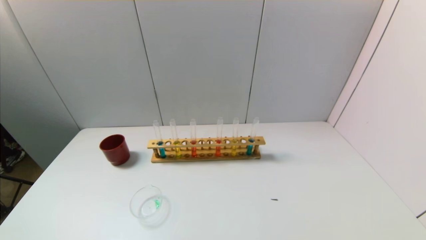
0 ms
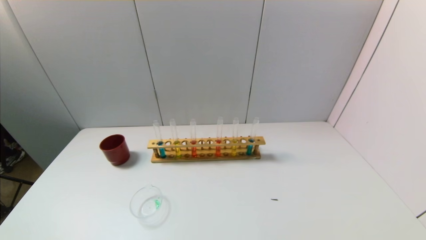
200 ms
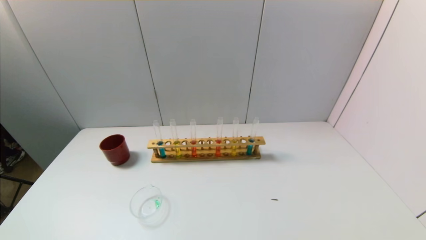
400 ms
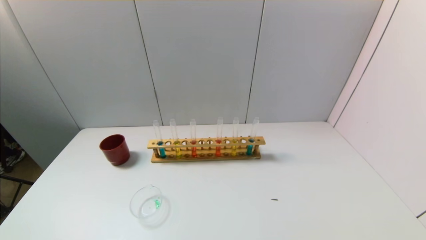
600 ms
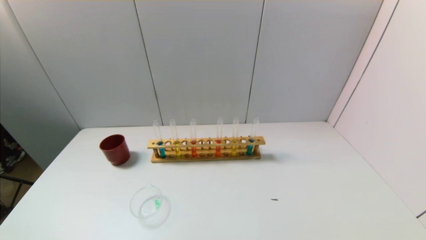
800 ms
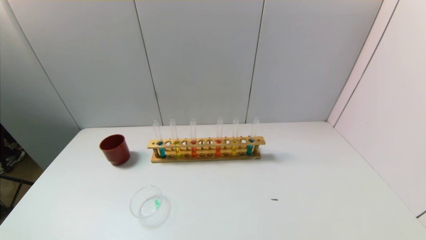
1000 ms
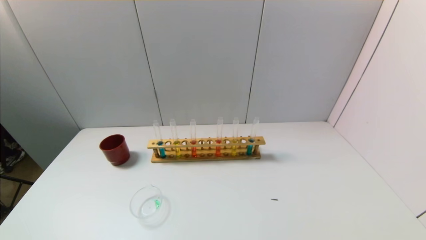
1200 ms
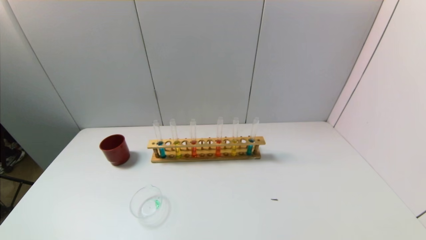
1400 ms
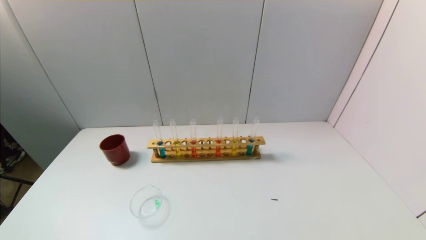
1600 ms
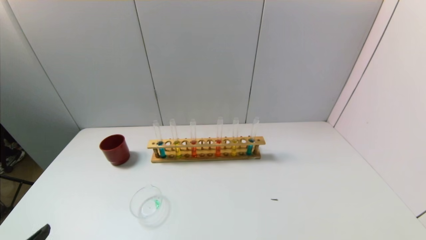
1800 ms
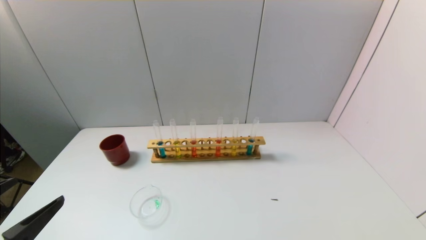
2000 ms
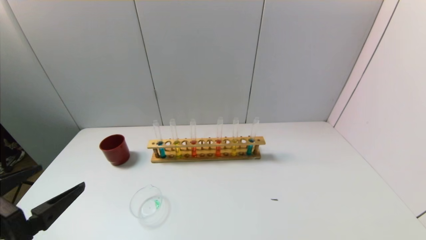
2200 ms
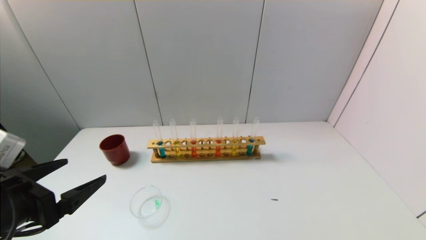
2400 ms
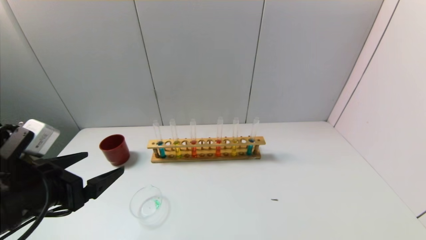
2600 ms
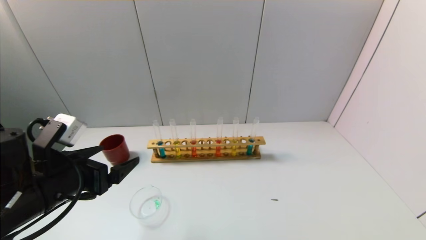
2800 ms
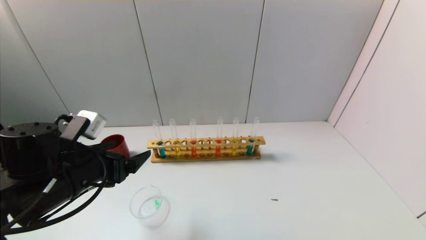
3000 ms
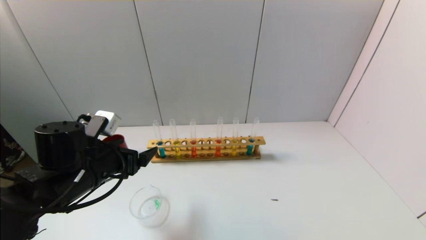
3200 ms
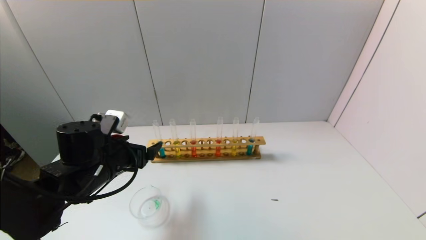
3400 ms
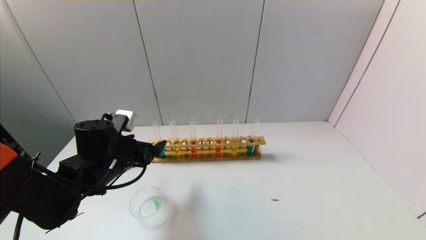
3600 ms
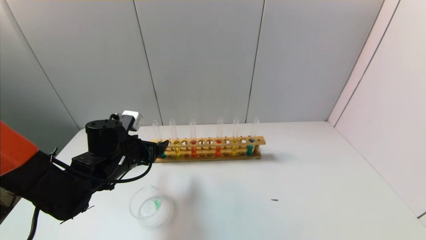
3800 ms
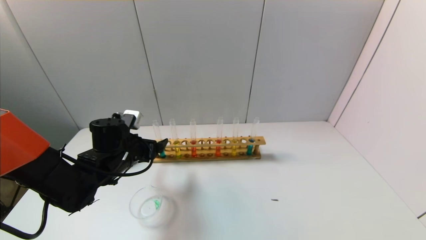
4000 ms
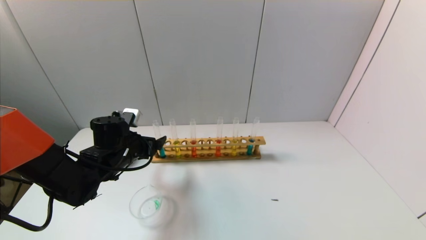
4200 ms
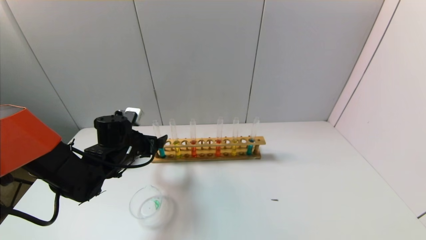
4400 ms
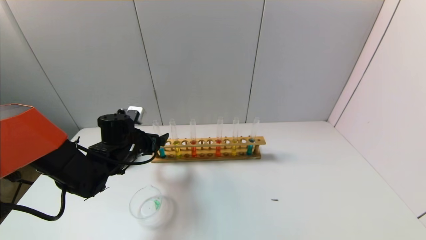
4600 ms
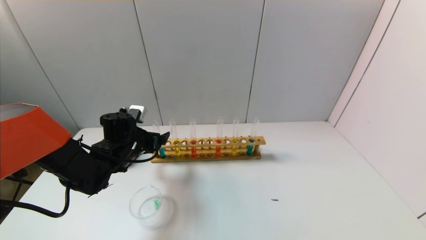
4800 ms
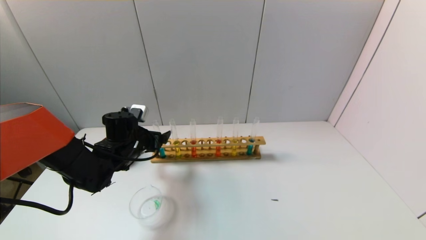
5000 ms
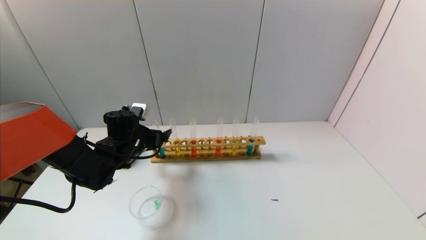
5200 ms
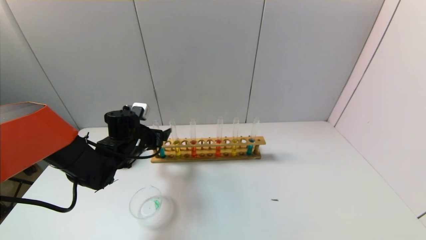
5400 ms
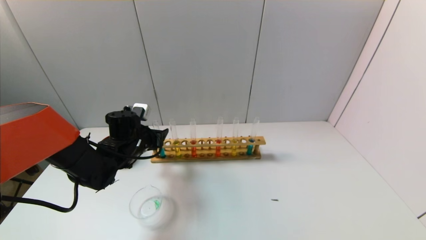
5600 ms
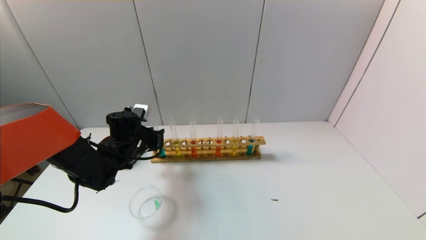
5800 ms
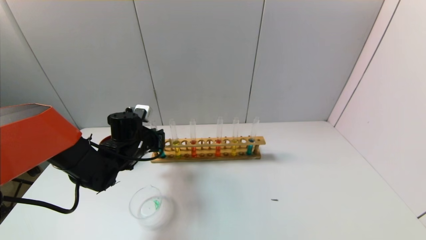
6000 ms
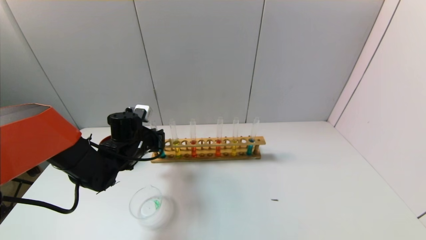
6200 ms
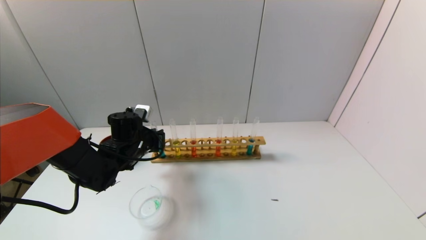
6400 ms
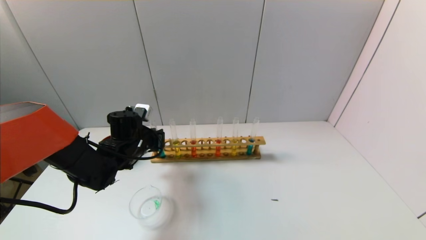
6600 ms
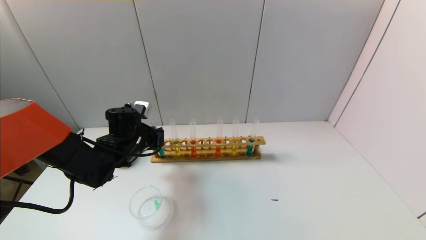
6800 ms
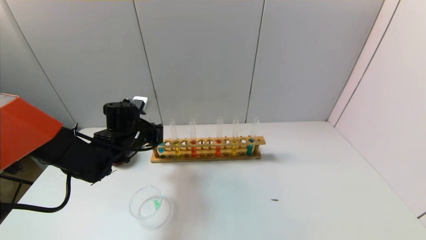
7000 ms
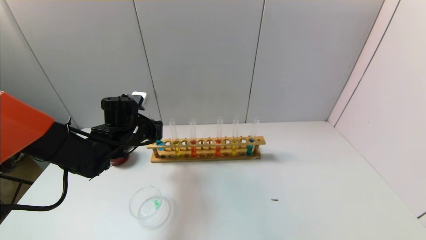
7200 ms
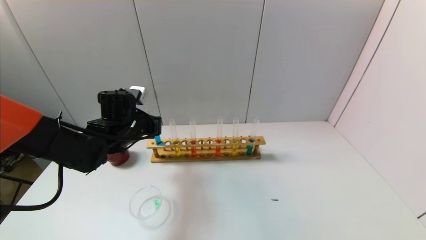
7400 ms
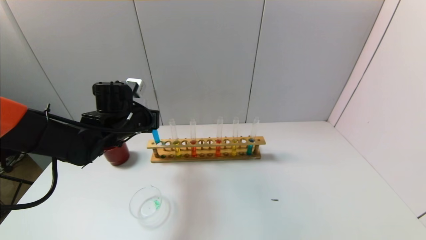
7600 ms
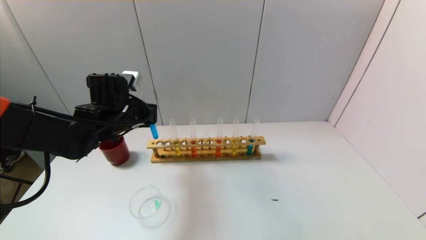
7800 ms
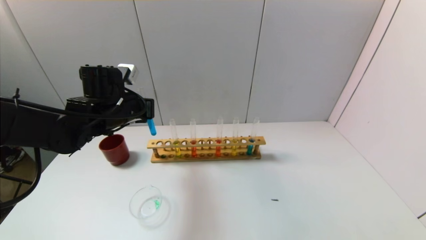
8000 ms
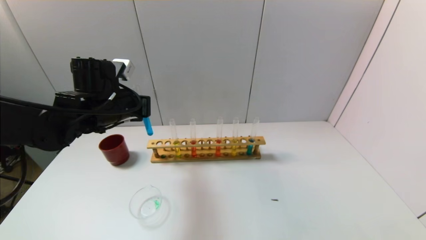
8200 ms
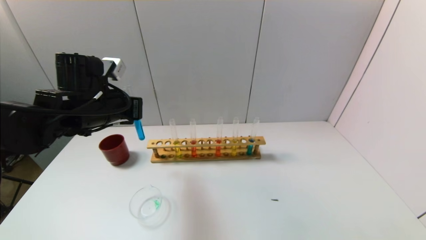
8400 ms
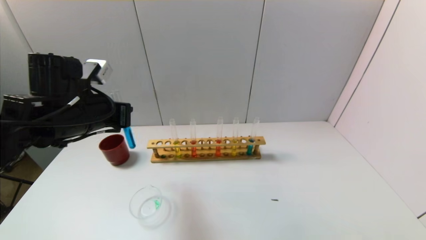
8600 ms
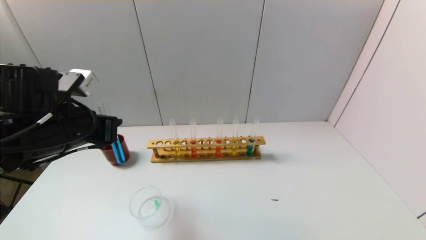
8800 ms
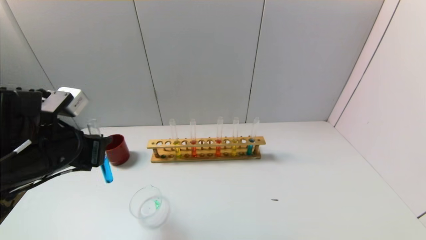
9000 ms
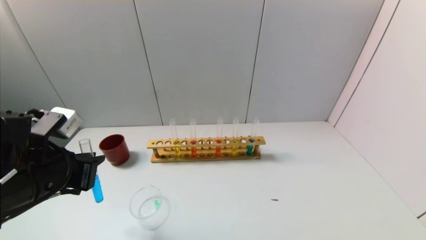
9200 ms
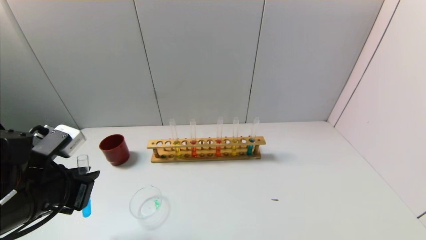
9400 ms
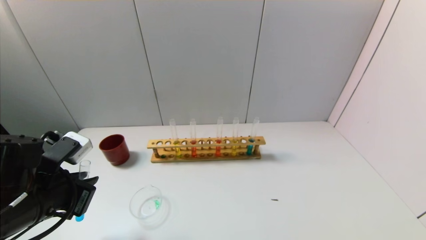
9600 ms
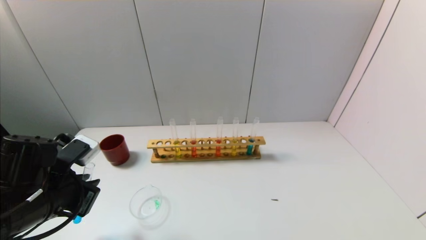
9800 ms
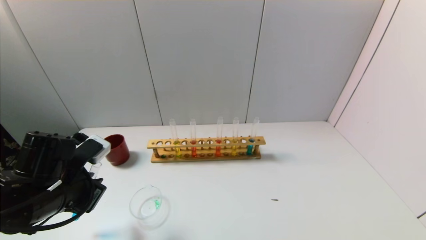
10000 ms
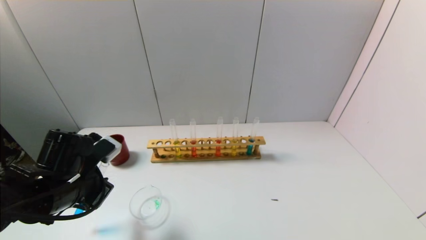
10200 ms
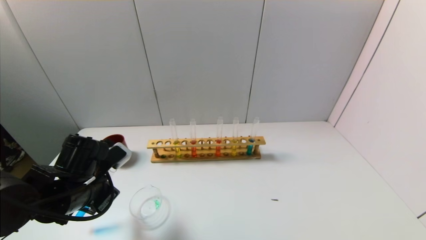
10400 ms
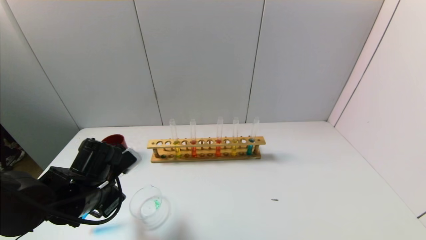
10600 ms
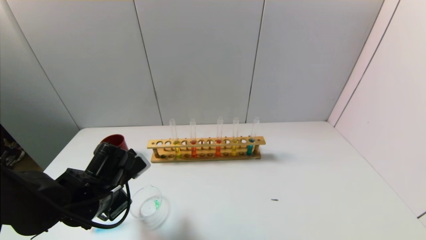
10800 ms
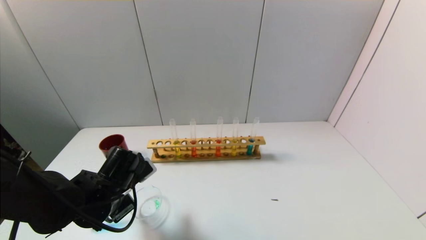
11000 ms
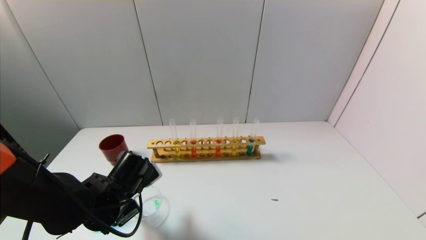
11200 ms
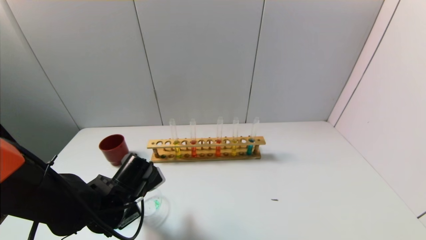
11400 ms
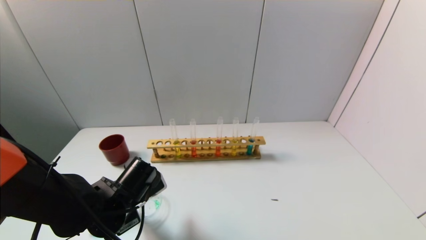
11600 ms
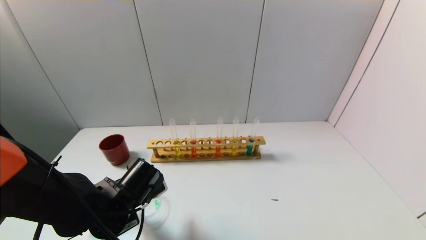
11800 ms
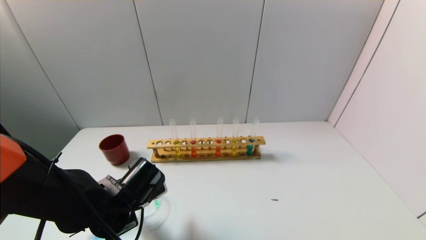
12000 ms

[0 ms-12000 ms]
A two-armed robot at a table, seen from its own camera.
Task of the whole recording: pick up the test tube with yellow pigment and the test tube with blue pigment by grippers and pour them into the beaker.
Step, 0 ms to 6000 ms: Grasp the blue reagent with the left gripper.
1600 ms to 3000 ms: The left gripper is displaced forward by some 20 cm.
3000 ms to 4400 ms: The left gripper shifts approximately 15 cm forward and downward.
4400 ms to 6000 ms: The left gripper closes its fingers.
6000 ms to 7600 ms: The left gripper travels upward by some 10 cm.
7600 ms to 9000 ms: The left gripper heads backward, covering about 15 cm.
9000 ms to 10400 ms: The left gripper moves downward, roughly 10 cm.
10400 ms to 12000 ms: The left gripper is displaced to the right by roughly 5 cm.

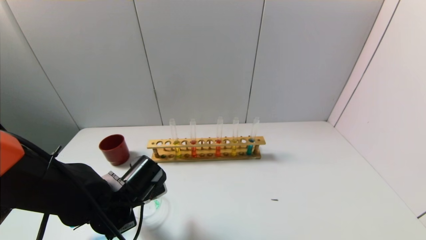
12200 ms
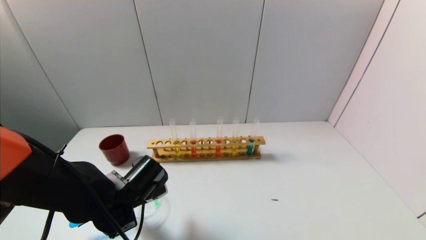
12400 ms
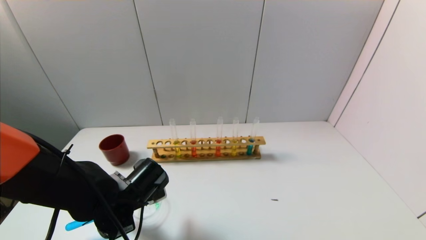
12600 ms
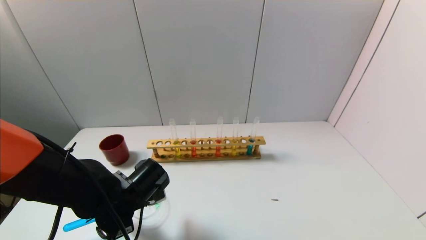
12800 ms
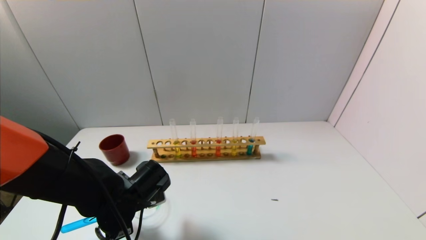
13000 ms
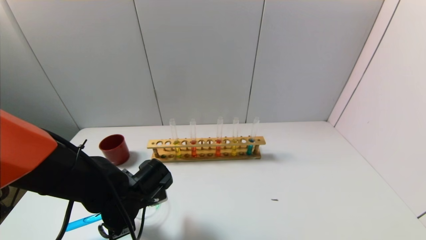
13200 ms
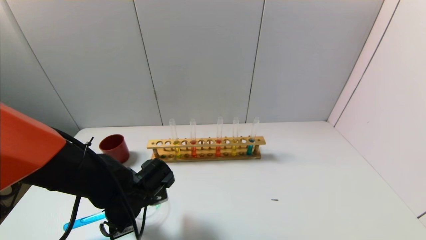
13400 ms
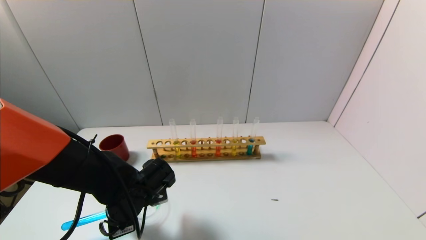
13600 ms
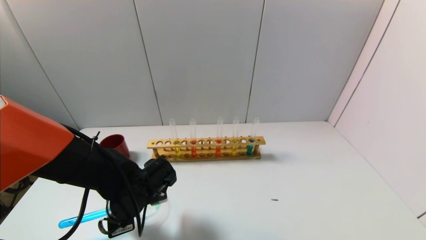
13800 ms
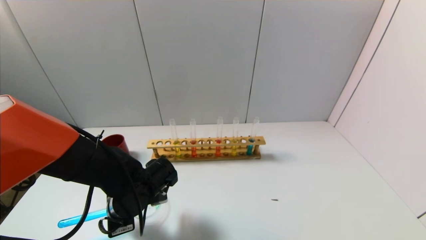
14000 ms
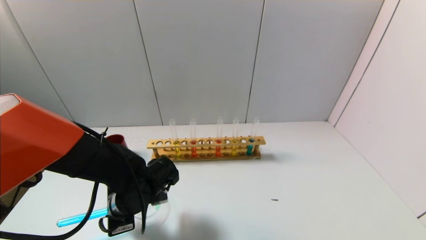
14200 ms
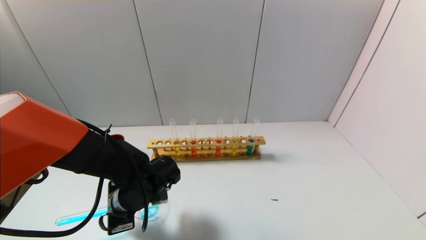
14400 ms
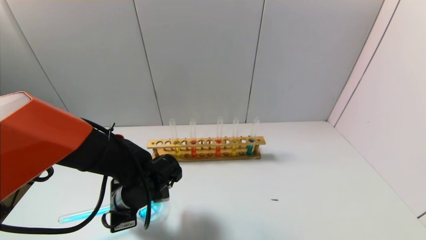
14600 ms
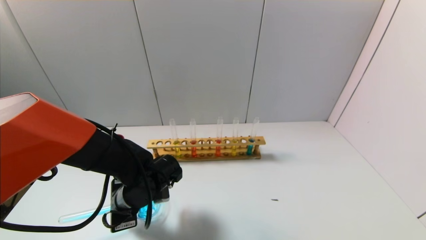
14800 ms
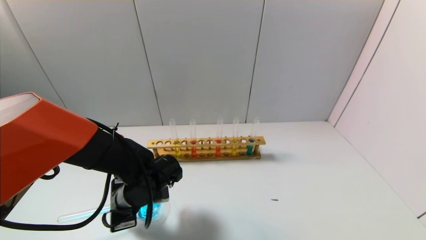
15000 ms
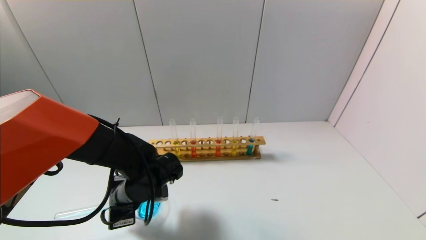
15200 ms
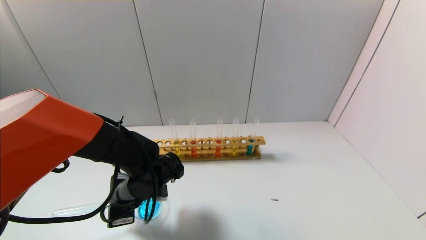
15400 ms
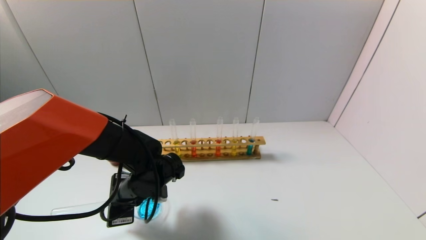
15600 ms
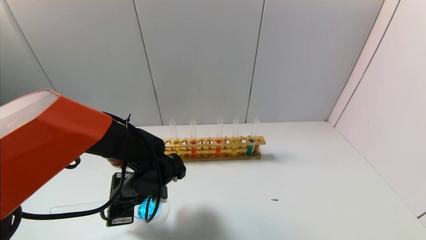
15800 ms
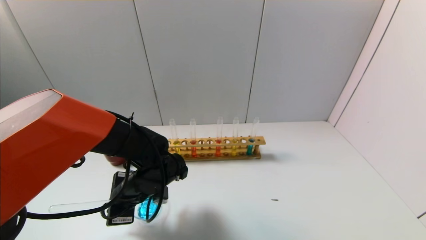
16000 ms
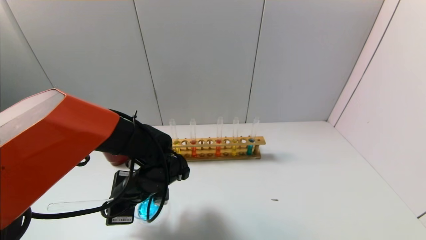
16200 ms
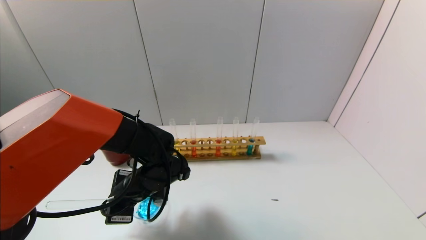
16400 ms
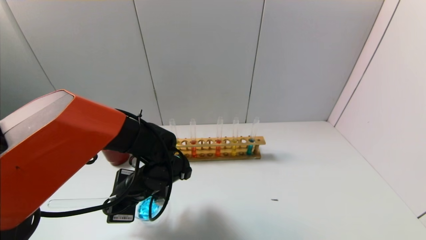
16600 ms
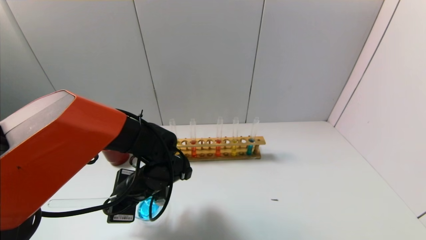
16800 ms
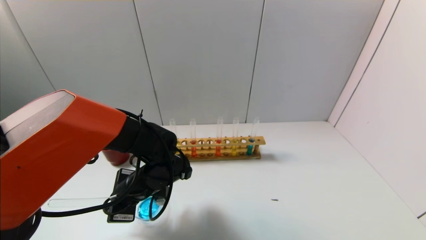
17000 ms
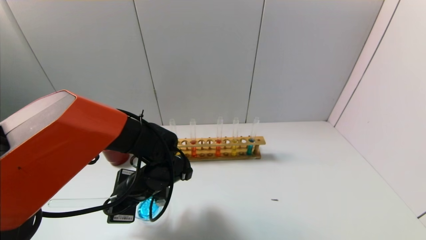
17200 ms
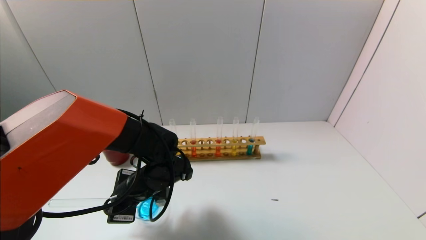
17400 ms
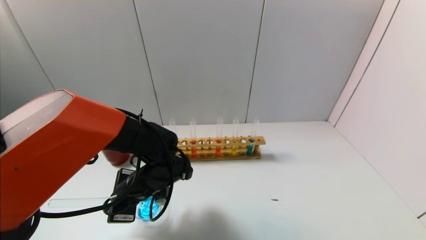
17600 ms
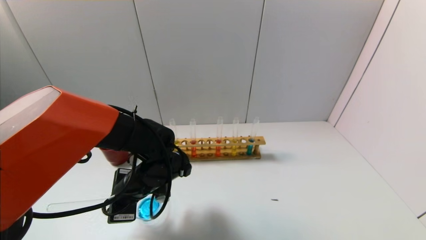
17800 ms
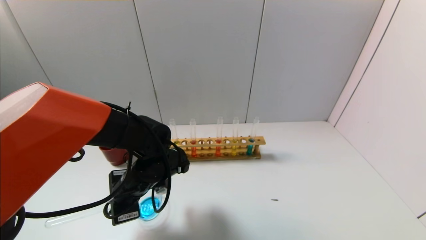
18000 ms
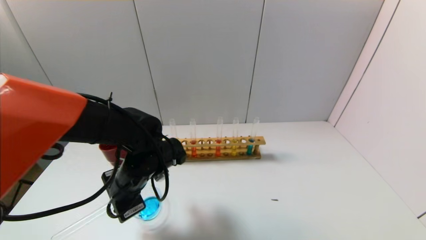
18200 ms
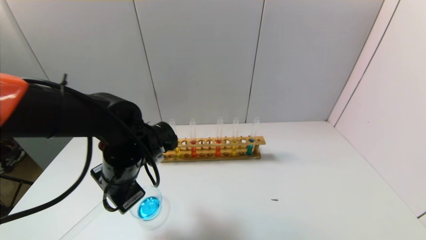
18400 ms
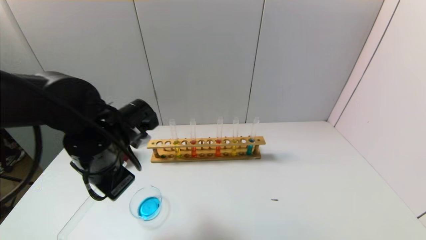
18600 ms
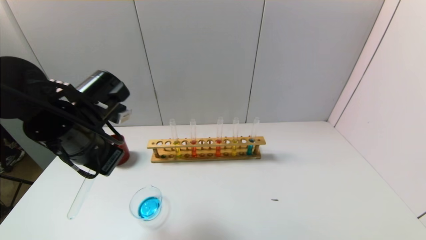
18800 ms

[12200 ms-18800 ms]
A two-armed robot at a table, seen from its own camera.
Task of the whole recording: pick up the test tube with yellow pigment and the test tube with blue pigment by grippers and pour them into the beaker.
Step, 12200 ms to 16200 ms: Pour the blue reagent into the graduated cylinder with the left gripper.
12200 ms to 13800 ms: The grippers stay close to where they were, moving slightly.
13800 ms to 15400 ms: There are only small adjustments of the grippers.
15400 ms to 17200 ms: There are only small adjustments of the grippers.
17200 ms to 18800 ms: The left gripper heads upward and to the left, covering roughly 15 cm.
